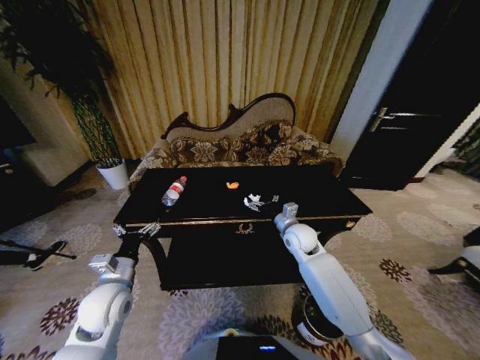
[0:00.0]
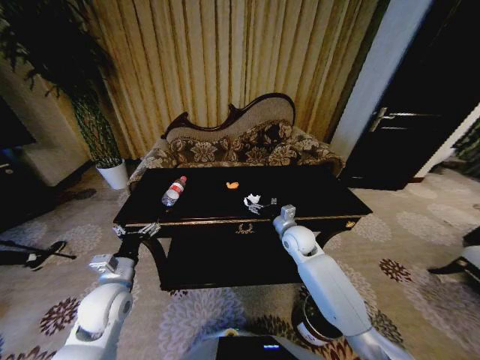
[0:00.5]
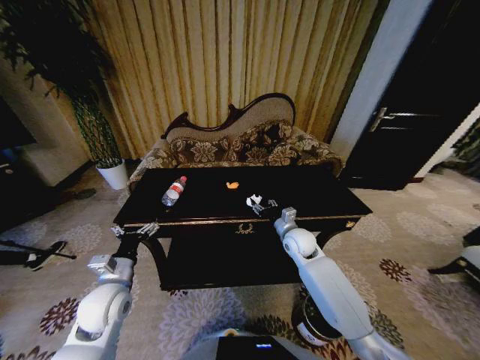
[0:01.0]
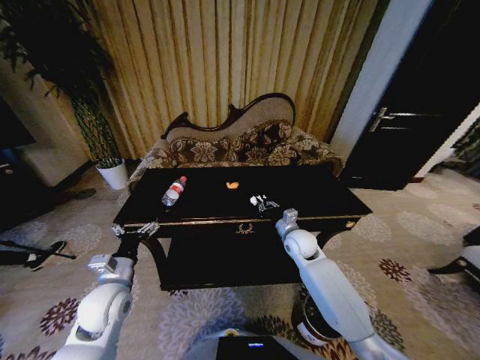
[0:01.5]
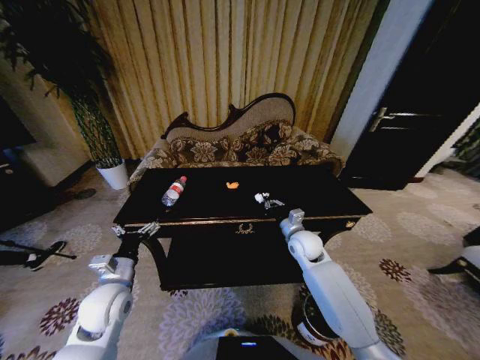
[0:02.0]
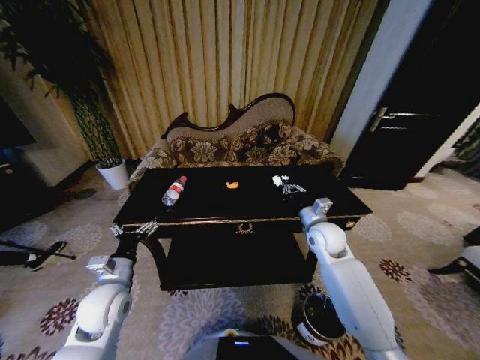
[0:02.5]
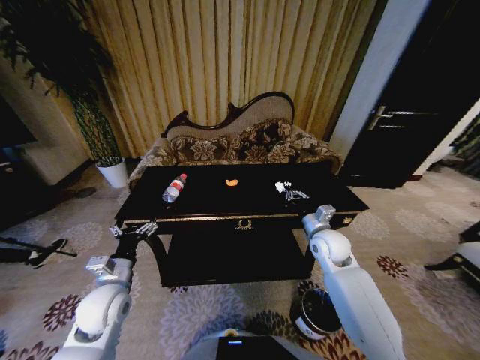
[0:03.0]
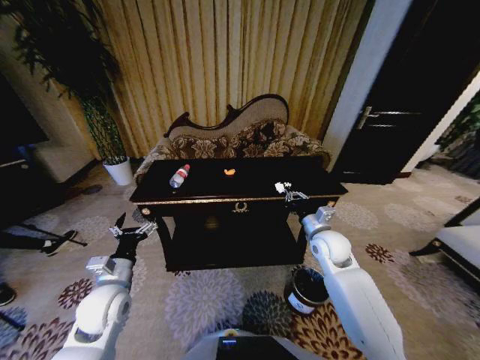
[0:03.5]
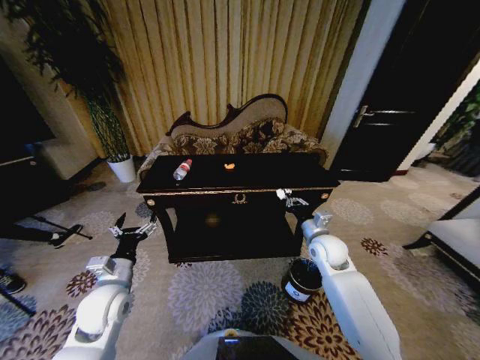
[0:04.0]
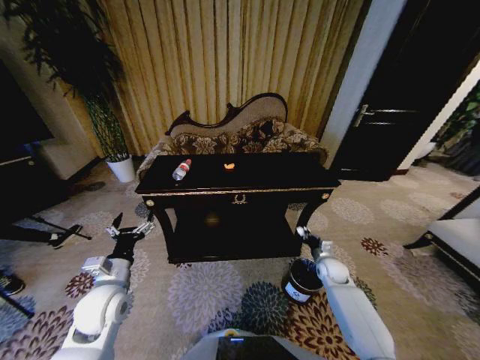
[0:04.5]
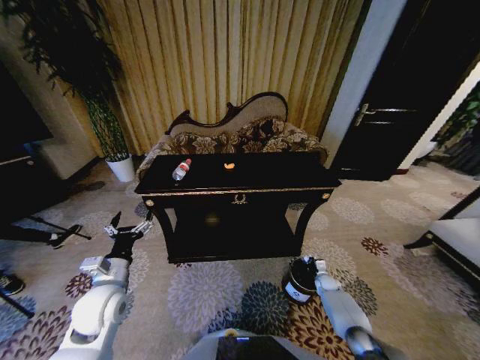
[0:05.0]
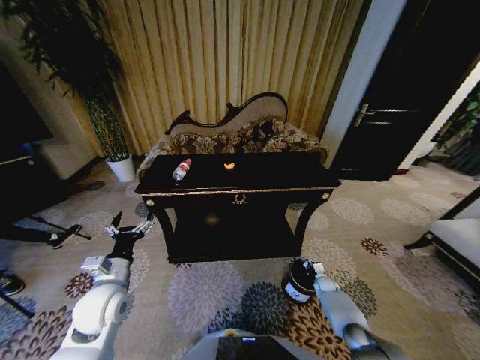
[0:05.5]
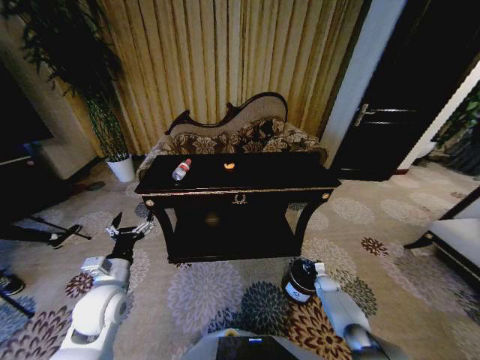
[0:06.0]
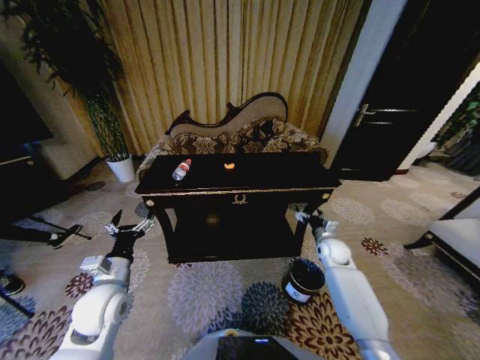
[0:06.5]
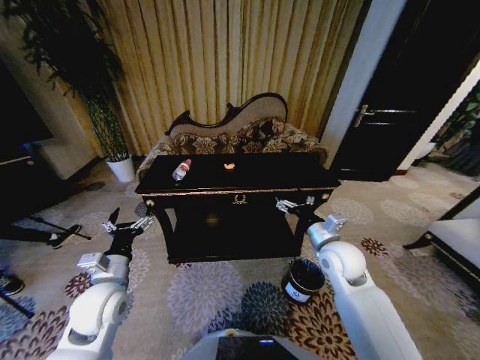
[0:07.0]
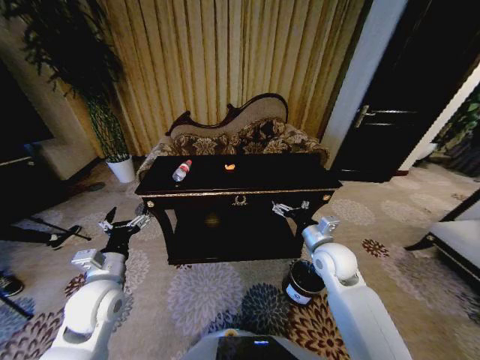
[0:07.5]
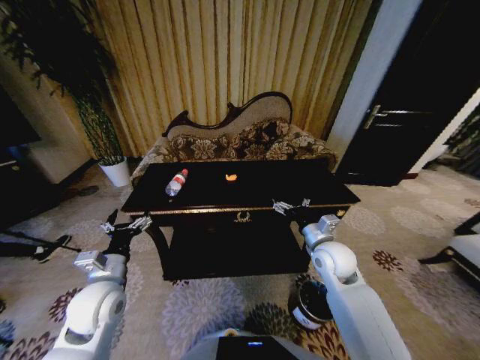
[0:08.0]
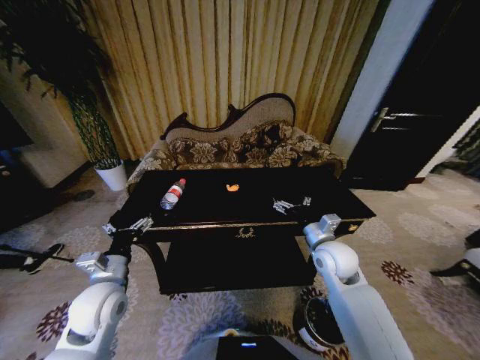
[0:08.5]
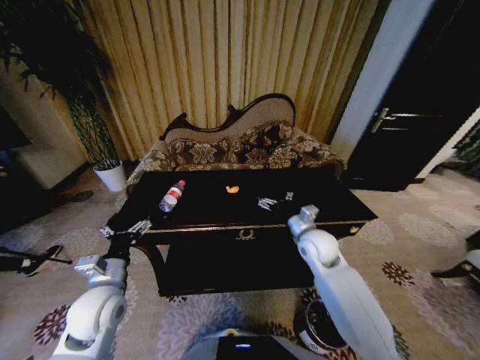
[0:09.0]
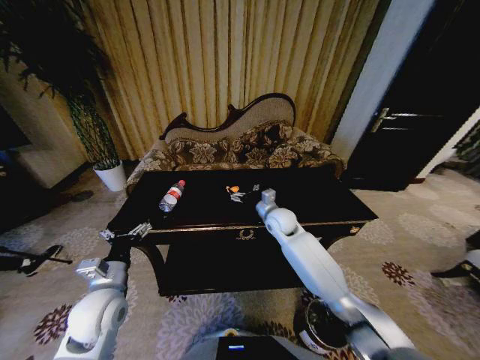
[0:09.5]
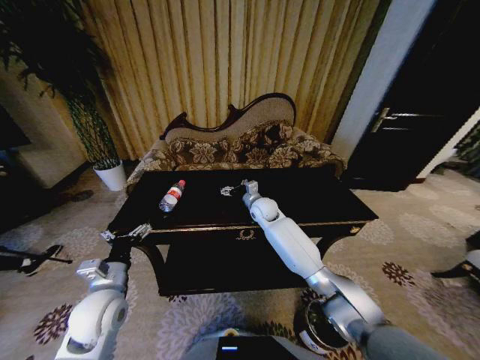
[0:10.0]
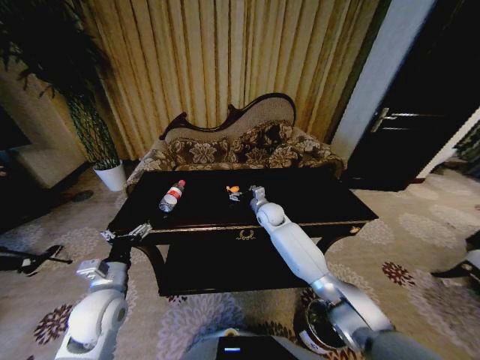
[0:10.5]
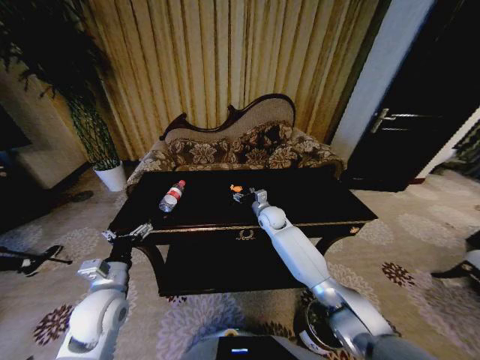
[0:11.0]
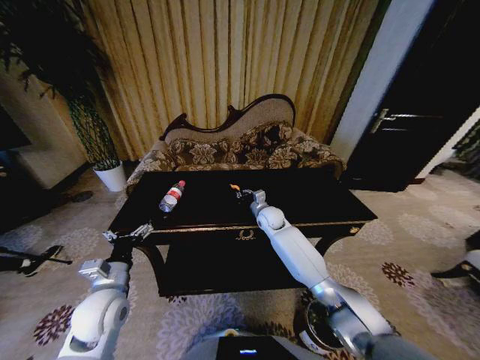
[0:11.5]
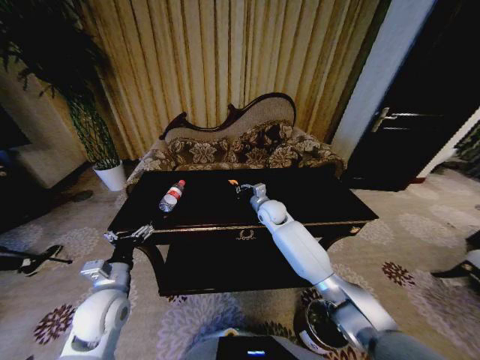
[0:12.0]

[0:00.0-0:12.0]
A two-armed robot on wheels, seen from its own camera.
Task of the whole recording: Move to the front of the table and place the trash on the table into the trash bin.
0:00.0 to 0:02.0: The right gripper closes its fingers.
0:02.0 to 0:04.0: The right gripper is displaced to the right by some 5 cm.
0:04.0 to 0:06.0: The right gripper heads downward and to the right, covering roughly 35 cm, and opens its fingers.
0:06.0 to 0:08.0: The right gripper travels upward and to the left by approximately 40 cm, and opens up.
0:08.0 to 0:10.0: The right gripper travels forward and to the left by roughly 25 cm.
0:10.0 to 0:12.0: The right gripper closes its fingers.

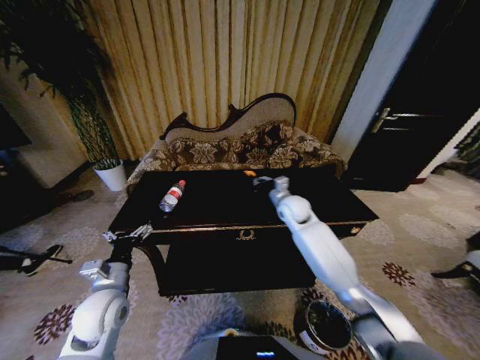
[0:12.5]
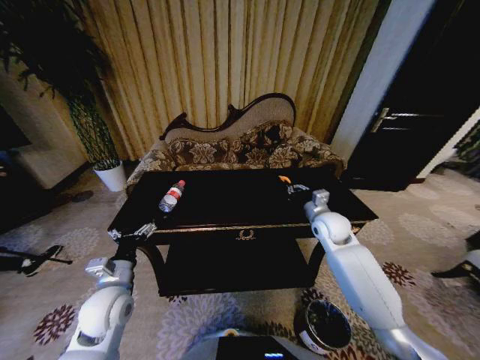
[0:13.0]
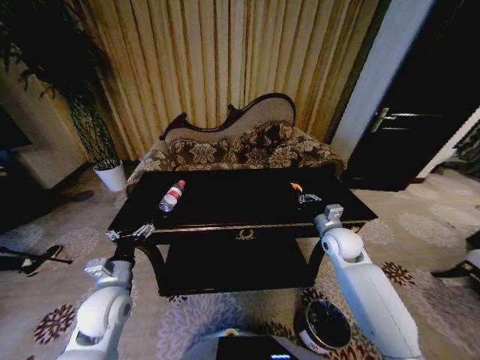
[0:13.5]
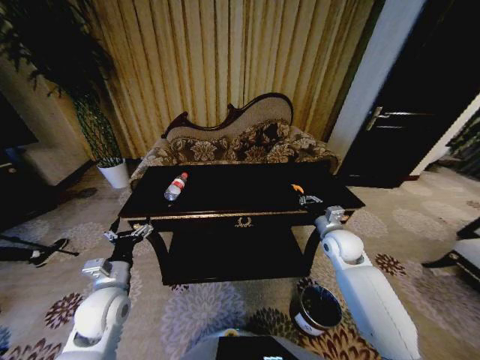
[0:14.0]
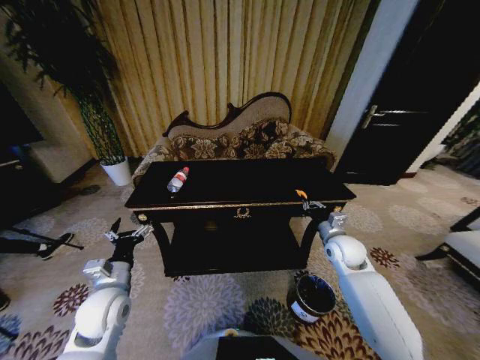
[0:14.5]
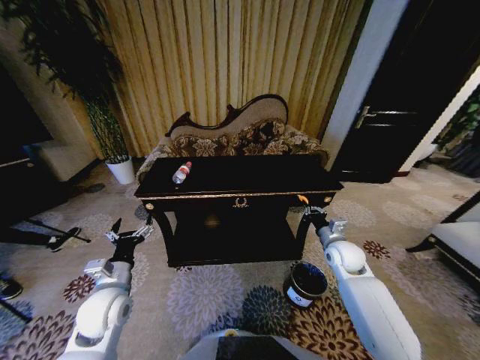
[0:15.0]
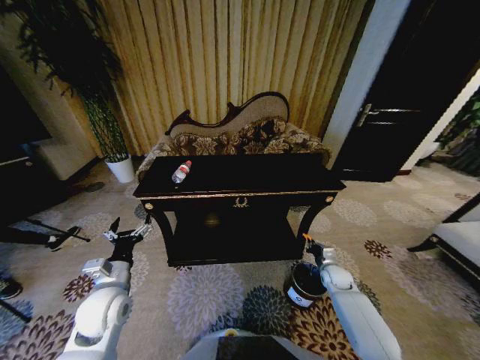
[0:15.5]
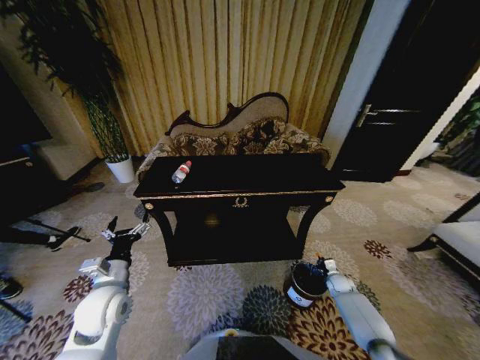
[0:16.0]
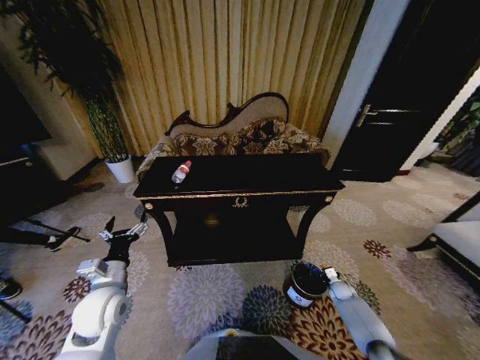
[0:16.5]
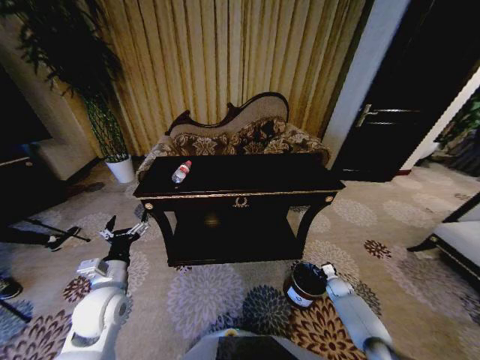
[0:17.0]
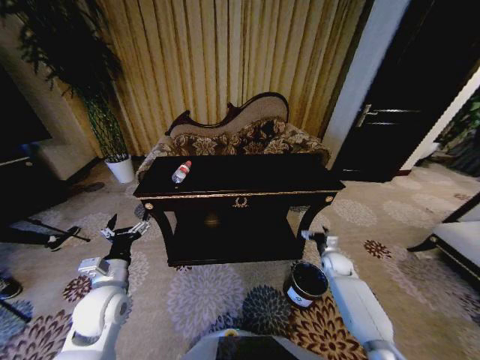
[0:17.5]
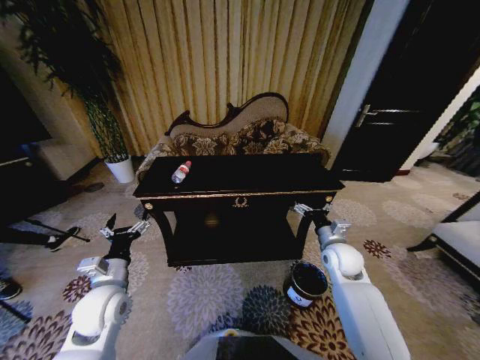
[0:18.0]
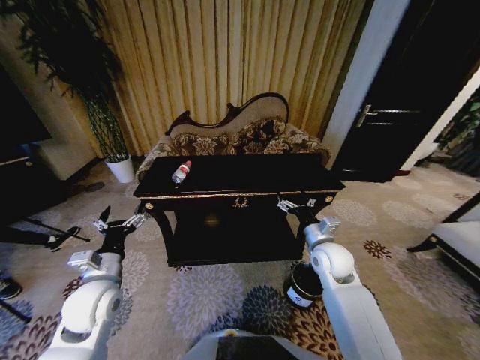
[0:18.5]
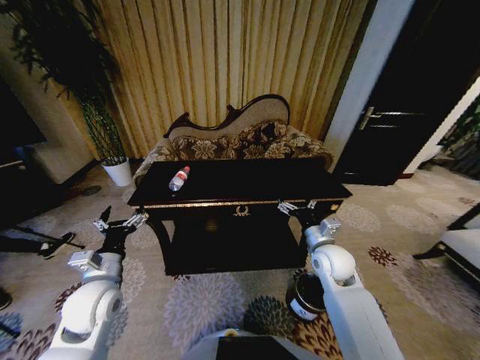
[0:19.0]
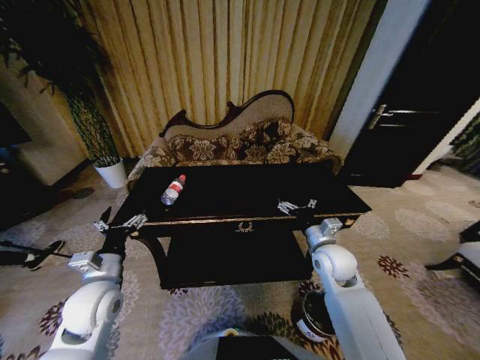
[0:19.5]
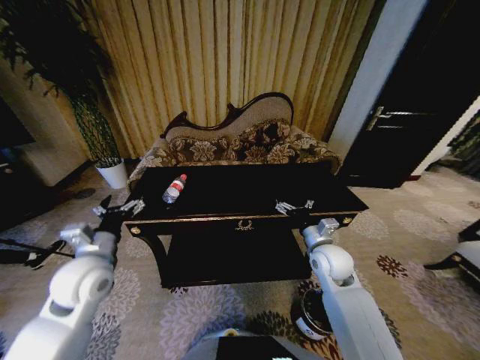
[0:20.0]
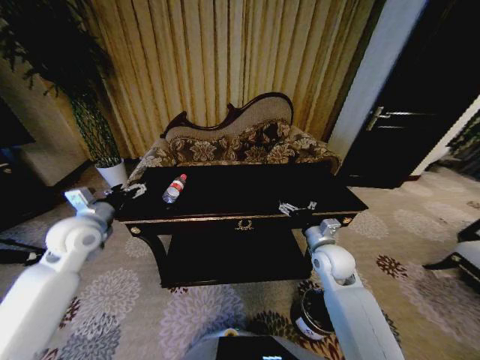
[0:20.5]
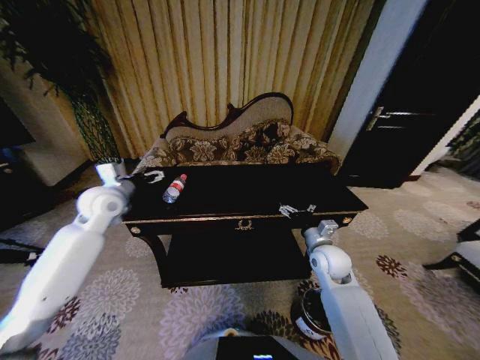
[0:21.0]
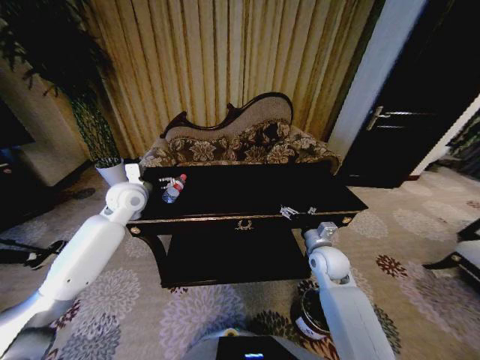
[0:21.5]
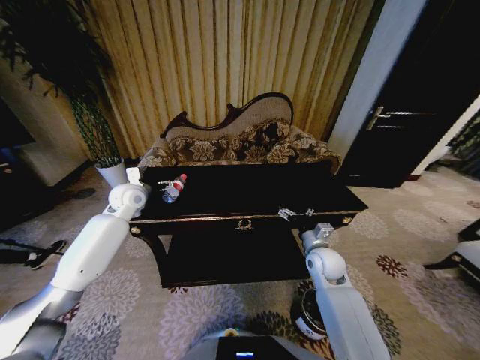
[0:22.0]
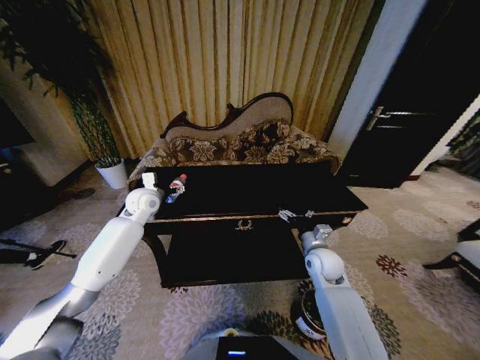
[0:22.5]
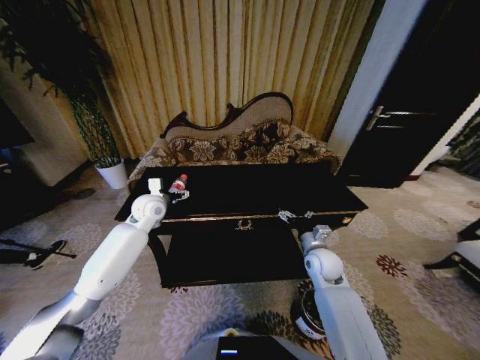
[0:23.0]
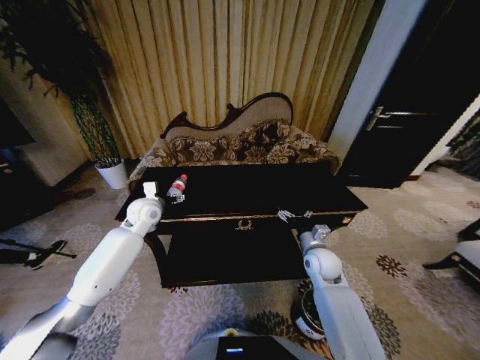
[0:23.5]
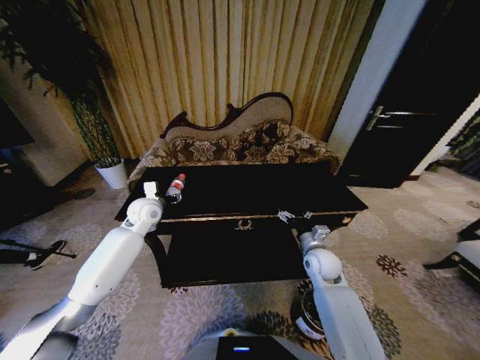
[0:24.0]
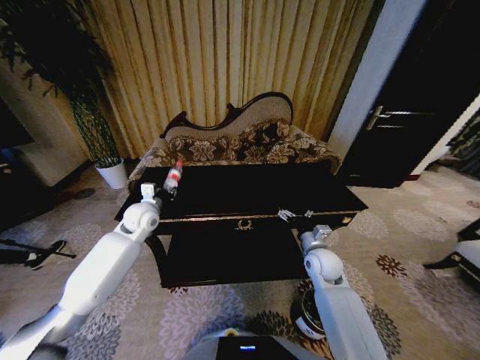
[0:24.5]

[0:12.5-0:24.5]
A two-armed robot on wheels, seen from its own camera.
Task of the whole recording: Move to the front of the table and place the trash on the table into the trash bin.
0:12.5 to 0:14.5: The right gripper shifts about 20 cm to the right, backward and downward.
0:14.5 to 0:16.5: The right gripper shifts approximately 30 cm downward and to the right.
0:16.5 to 0:18.5: The right gripper moves upward and to the left, roughly 40 cm, and opens.
0:18.5 to 0:20.5: The left gripper moves forward, upward and to the left, about 15 cm.
0:20.5 to 0:22.5: The left gripper heads forward and to the right, covering approximately 15 cm.
0:22.5 to 0:24.5: The left gripper shifts by approximately 5 cm, and closes.

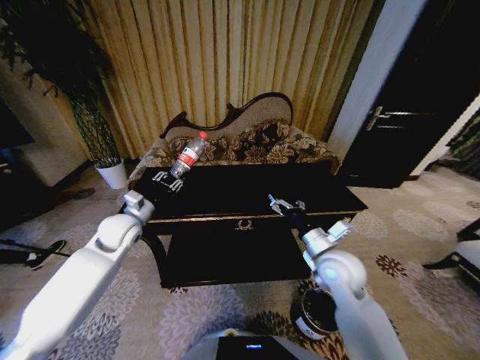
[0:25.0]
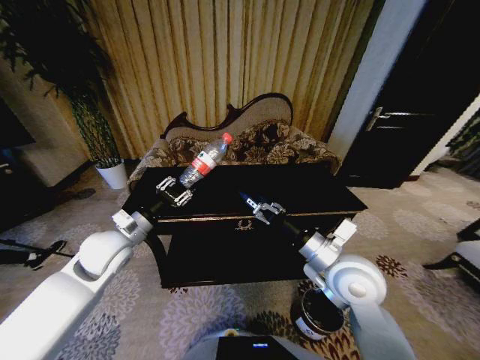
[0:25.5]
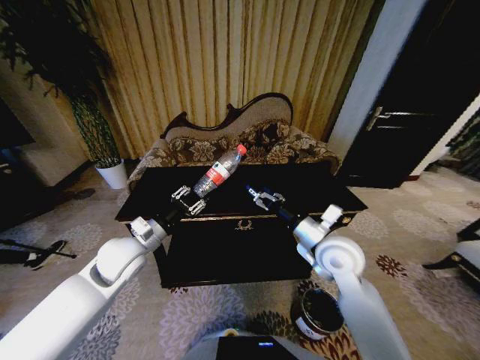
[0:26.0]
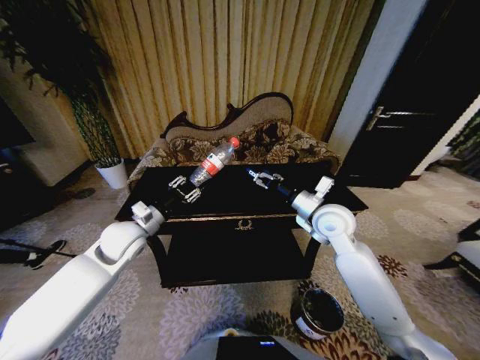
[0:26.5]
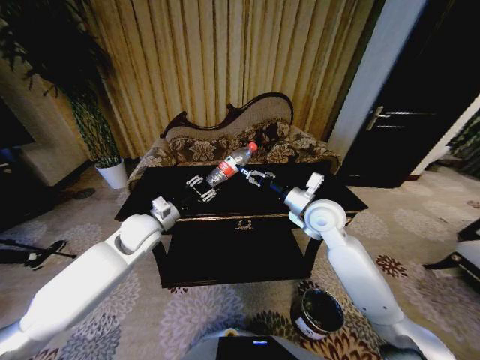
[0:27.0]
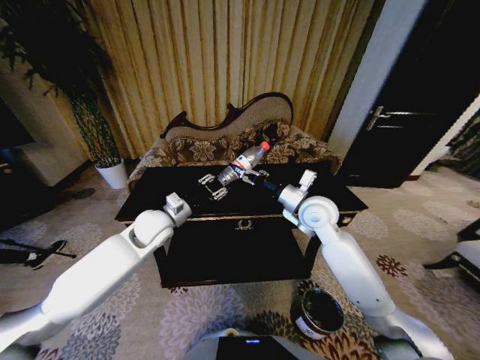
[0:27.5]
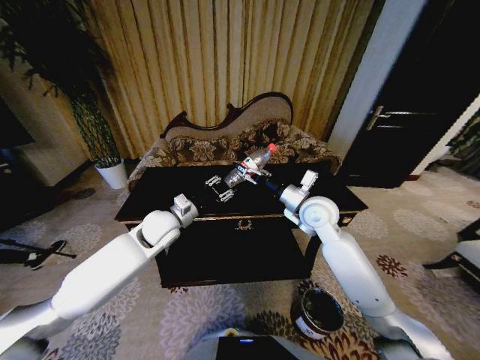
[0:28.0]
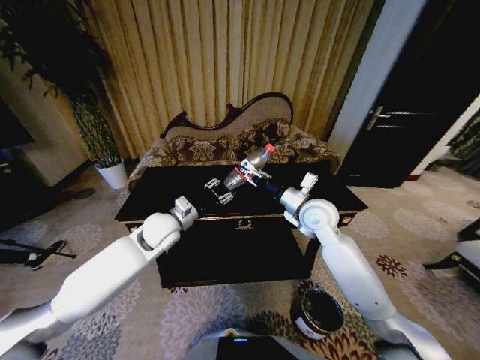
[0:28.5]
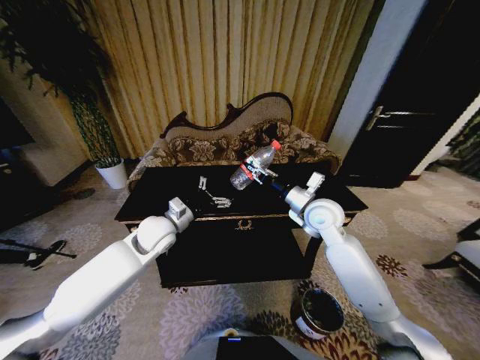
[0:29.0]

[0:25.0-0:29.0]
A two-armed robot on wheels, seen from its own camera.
Task of the whole recording: Move to the front of the table and place the trash on the table into the trash bin.
0:25.0 to 0:27.0: The left gripper heads to the right, covering approximately 5 cm, and moves approximately 10 cm backward and comes back. The right gripper goes about 15 cm forward and upward.
0:27.0 to 0:29.0: The left gripper opens up. The right gripper closes.
